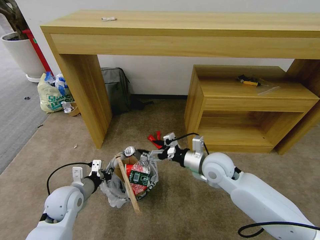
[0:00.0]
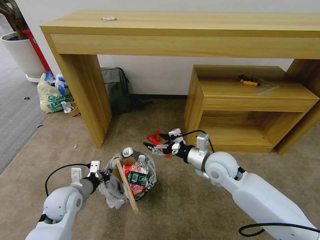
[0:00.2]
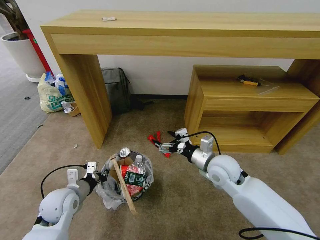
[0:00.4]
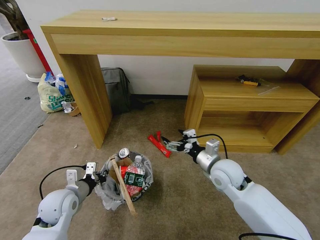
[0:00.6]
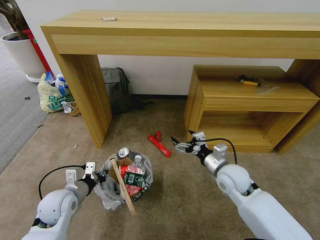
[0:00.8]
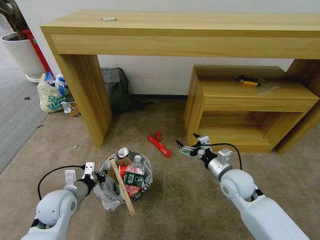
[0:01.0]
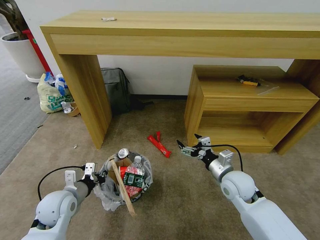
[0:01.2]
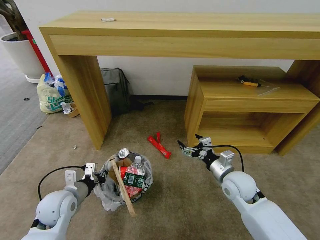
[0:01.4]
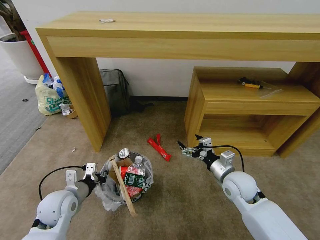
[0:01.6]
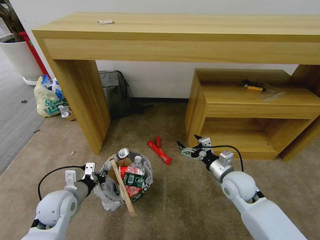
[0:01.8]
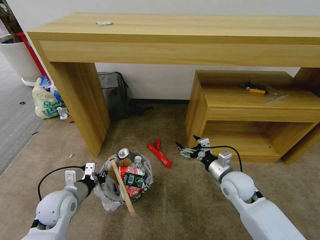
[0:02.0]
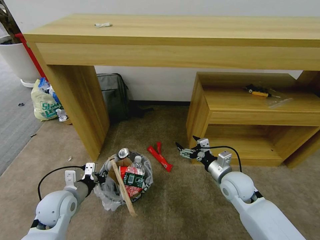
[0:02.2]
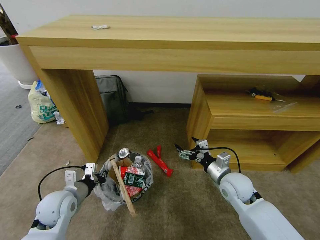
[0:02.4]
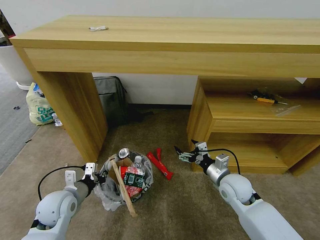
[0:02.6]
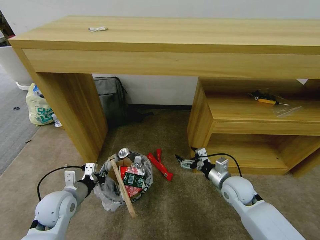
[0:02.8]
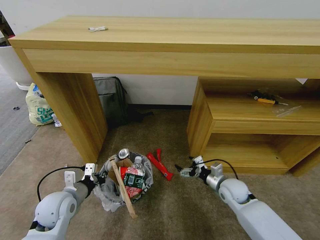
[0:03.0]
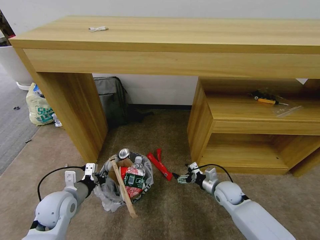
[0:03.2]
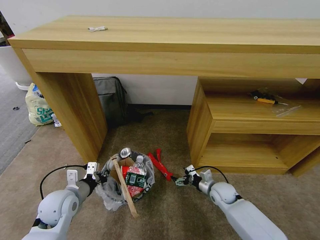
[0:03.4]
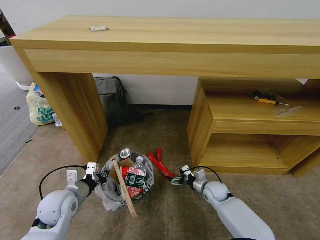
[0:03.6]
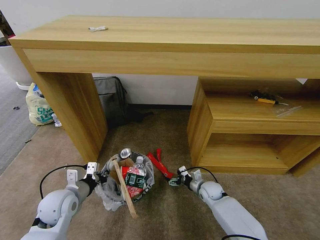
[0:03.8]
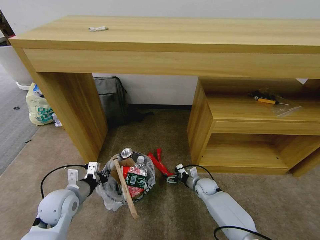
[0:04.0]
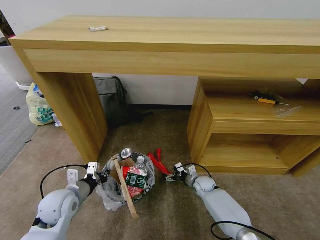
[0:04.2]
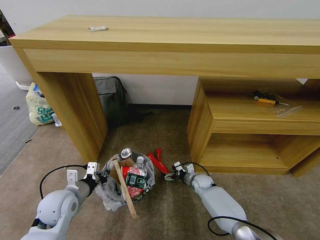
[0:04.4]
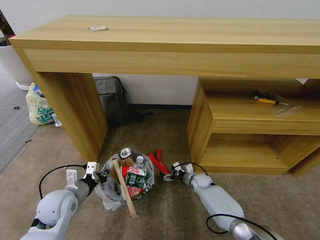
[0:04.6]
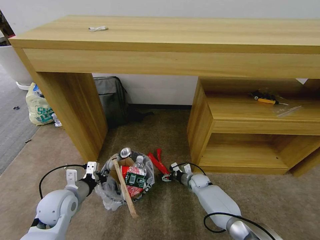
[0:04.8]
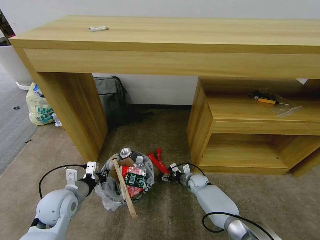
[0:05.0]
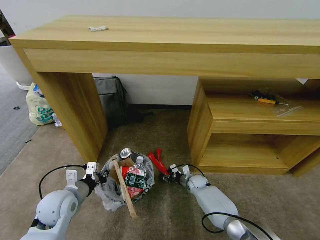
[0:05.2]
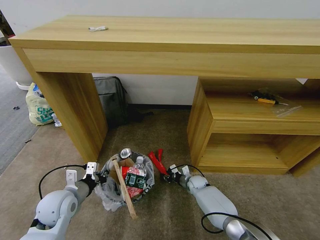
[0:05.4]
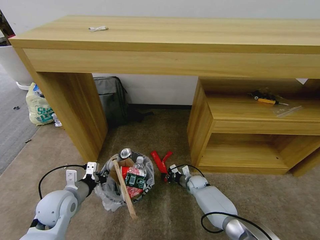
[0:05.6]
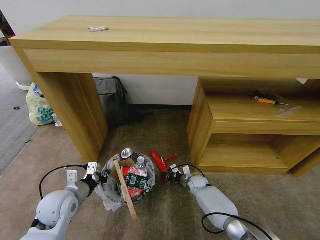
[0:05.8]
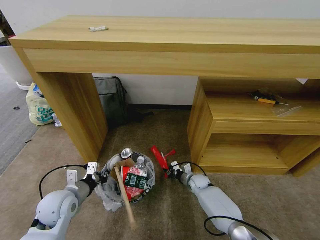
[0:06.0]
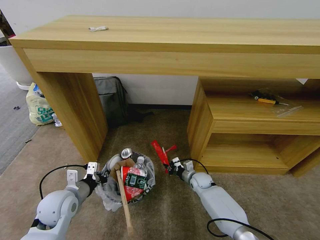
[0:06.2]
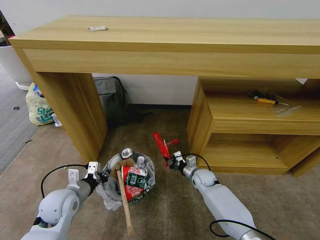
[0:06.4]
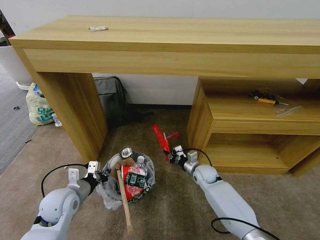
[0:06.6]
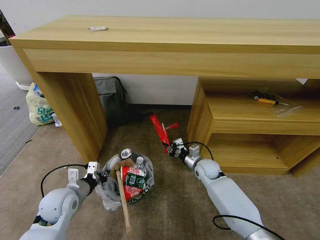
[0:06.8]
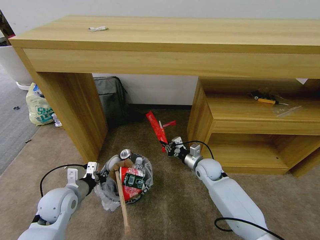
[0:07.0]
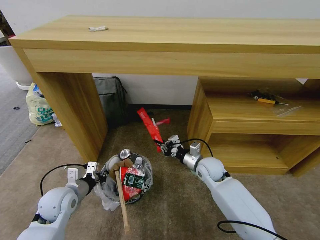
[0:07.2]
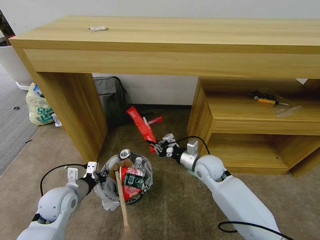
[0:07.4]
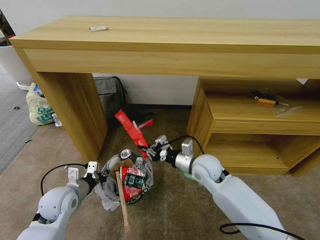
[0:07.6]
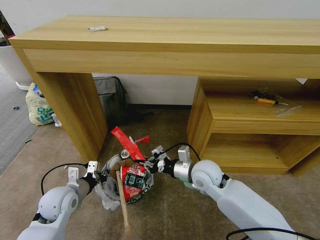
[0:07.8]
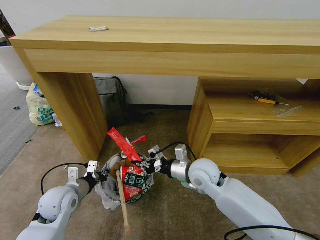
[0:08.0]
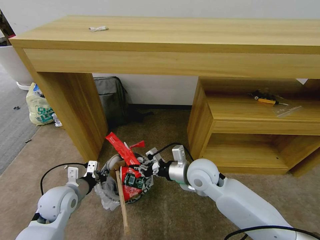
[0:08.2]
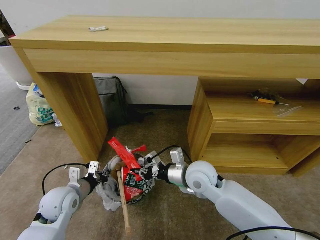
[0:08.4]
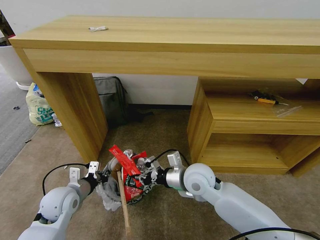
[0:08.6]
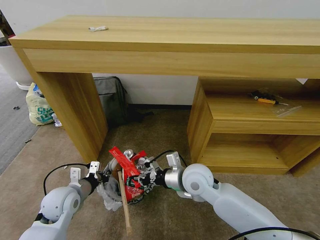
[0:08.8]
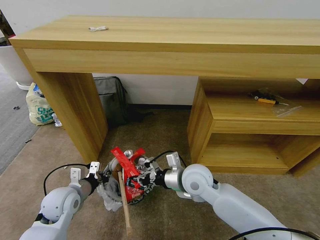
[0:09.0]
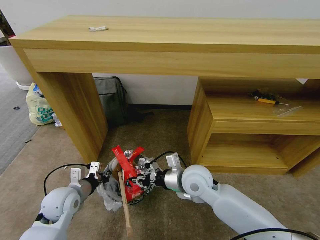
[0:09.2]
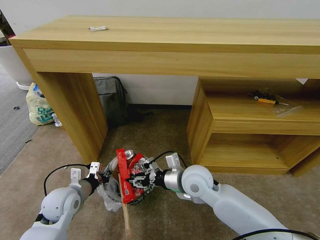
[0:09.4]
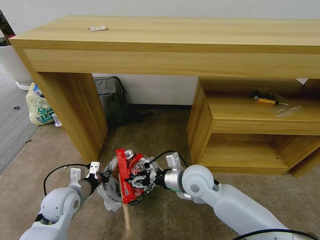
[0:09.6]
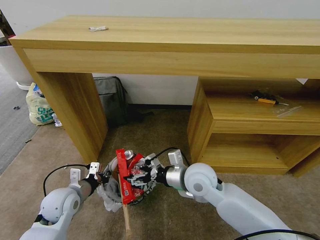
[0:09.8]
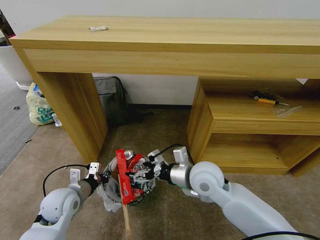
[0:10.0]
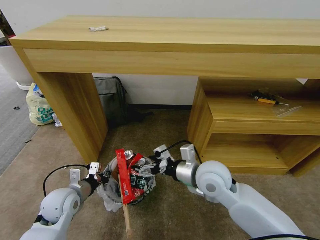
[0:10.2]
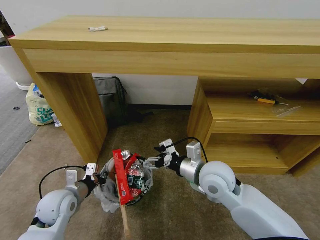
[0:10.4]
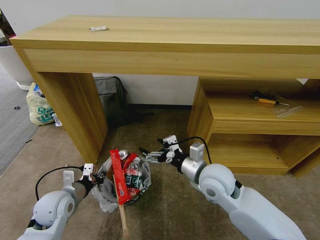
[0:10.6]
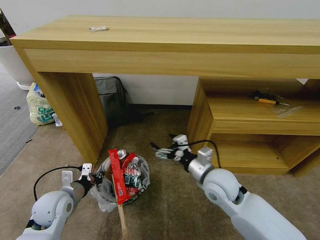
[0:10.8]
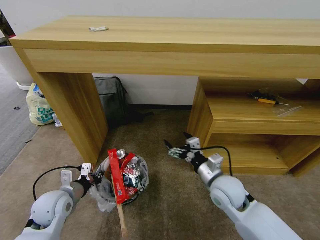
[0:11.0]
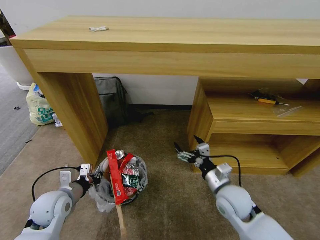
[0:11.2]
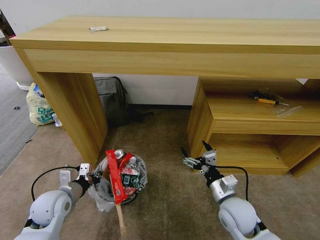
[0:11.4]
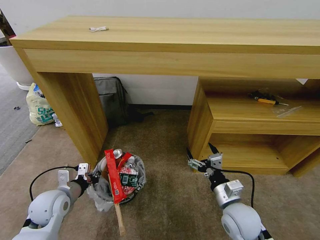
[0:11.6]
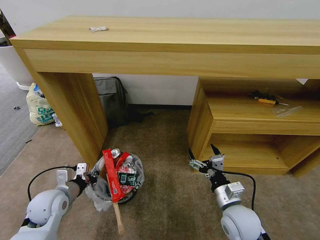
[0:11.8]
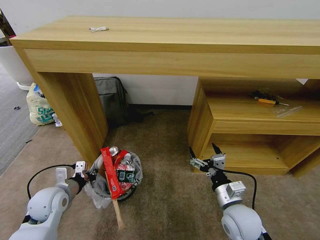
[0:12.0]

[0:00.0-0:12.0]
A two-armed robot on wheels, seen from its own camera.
Task of the whole recording: Pick up the trash bin and place the garbage on the floor into it.
0:00.0 to 0:01.6: The right gripper travels to the right and downward by roughly 10 cm.
0:01.6 to 0:03.0: The right gripper goes roughly 10 cm downward.
0:03.0 to 0:04.4: The right gripper is displaced downward, forward and to the left by roughly 20 cm.
0:04.4 to 0:06.0: The right gripper closes its fingers.
0:06.0 to 0:07.6: The right gripper travels upward by approximately 25 cm.
0:07.6 to 0:09.0: The right gripper ends up approximately 5 cm from where it was.
0:09.0 to 0:10.4: The right gripper shifts by approximately 5 cm, and opens its fingers.
0:10.4 to 0:12.0: The right gripper travels downward, backward and to the right by roughly 15 cm.

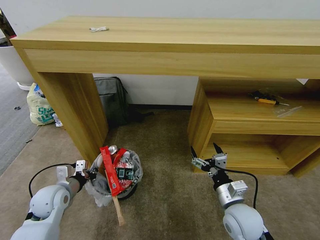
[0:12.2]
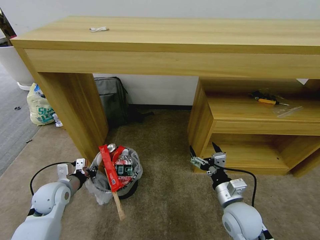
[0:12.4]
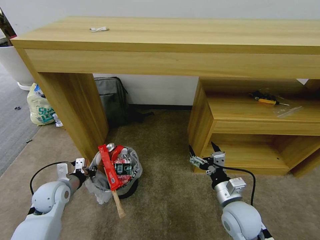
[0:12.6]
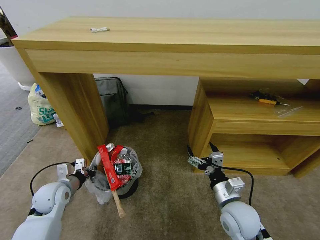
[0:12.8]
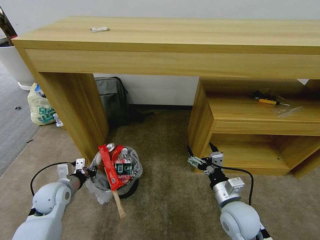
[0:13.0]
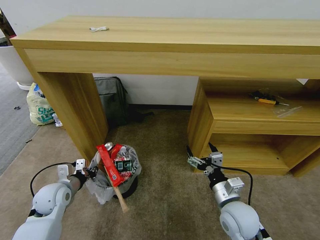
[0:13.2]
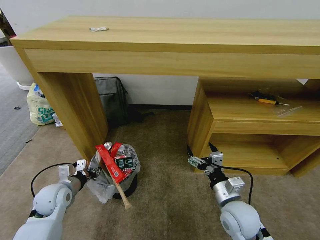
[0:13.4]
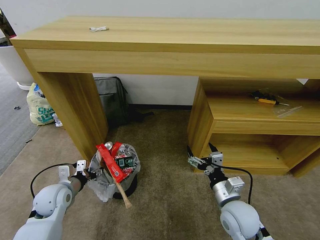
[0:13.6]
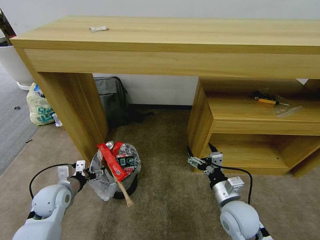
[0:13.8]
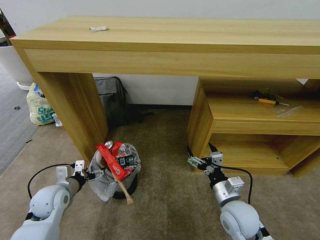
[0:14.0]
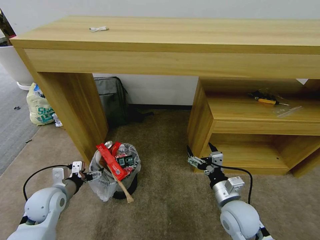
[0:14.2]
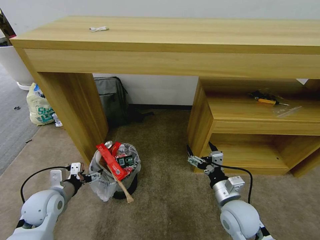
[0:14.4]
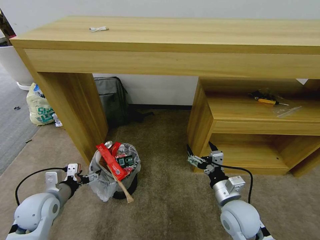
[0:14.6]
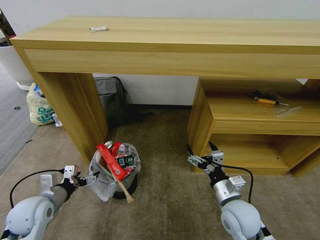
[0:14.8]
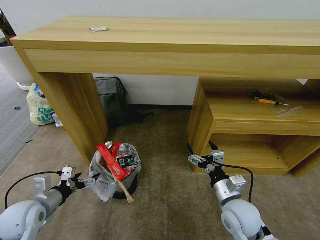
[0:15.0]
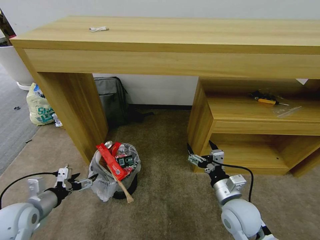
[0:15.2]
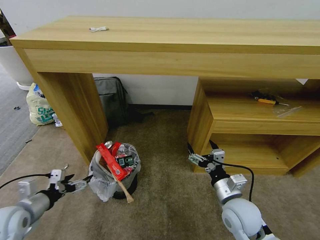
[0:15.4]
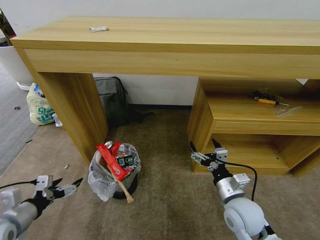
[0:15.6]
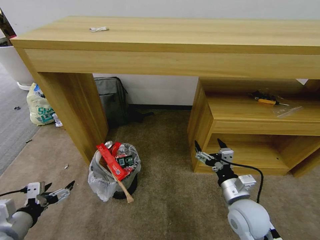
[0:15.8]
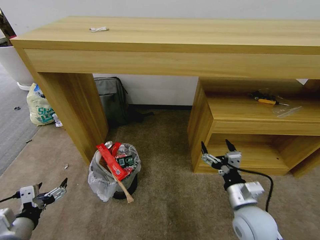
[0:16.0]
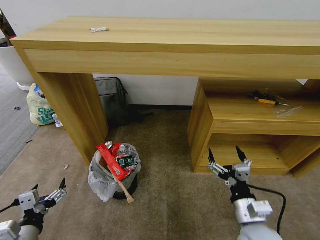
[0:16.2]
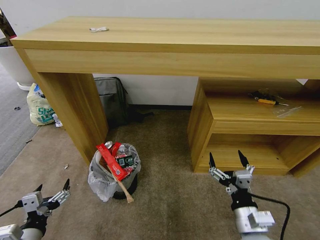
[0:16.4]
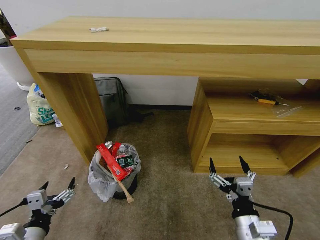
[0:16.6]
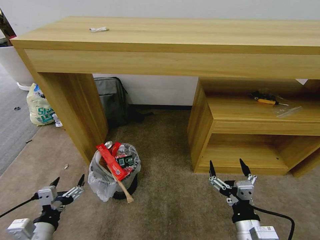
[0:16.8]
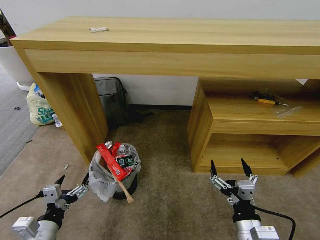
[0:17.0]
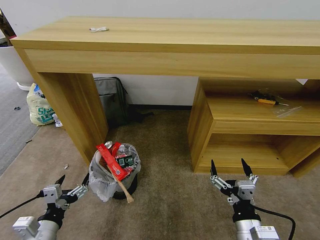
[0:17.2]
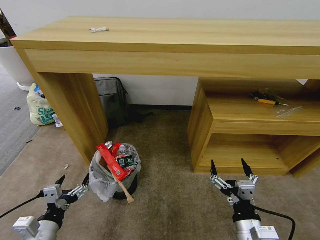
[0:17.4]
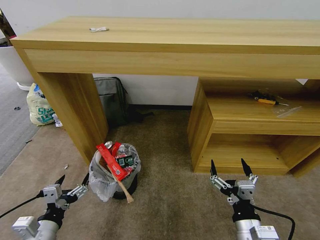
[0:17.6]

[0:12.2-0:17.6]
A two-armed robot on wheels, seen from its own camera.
Task of the whole recording: Pick up the trash bin and place the garbage on the floor into it.
0:12.2 to 0:13.6: The left gripper opens.
0:13.6 to 0:15.0: The left gripper shifts roughly 5 cm backward, and opens.
0:15.0 to 0:16.2: The right gripper moves roughly 5 cm. The left gripper goes approximately 10 cm backward.
0:16.2 to 0:17.6: The right gripper shifts approximately 5 cm backward.

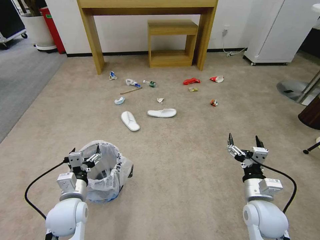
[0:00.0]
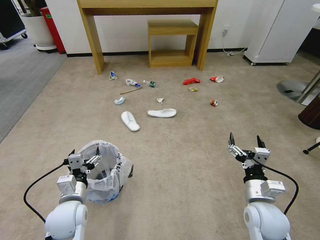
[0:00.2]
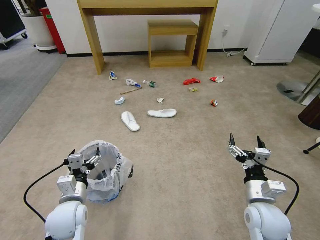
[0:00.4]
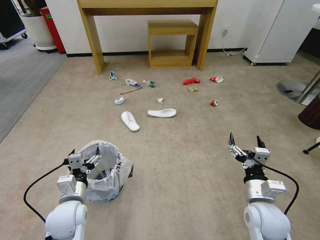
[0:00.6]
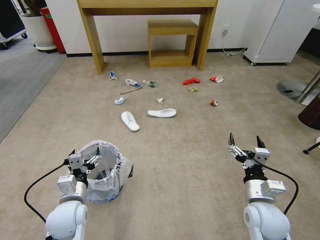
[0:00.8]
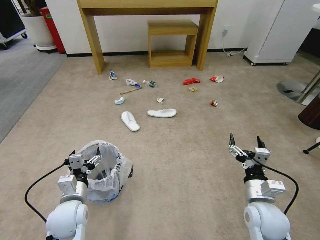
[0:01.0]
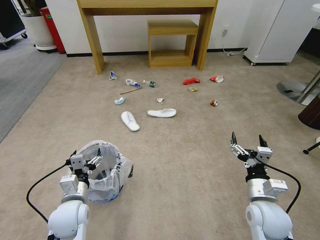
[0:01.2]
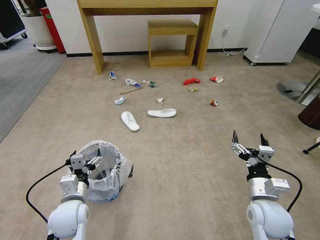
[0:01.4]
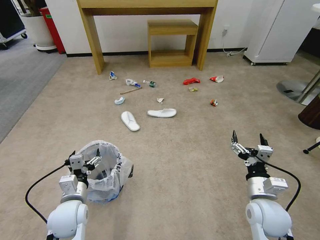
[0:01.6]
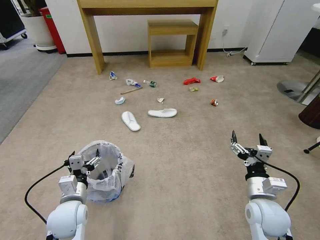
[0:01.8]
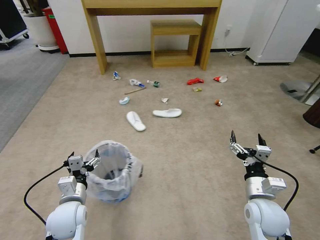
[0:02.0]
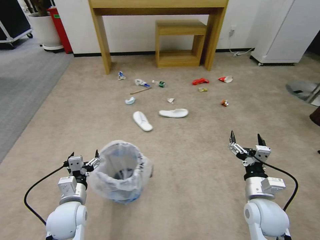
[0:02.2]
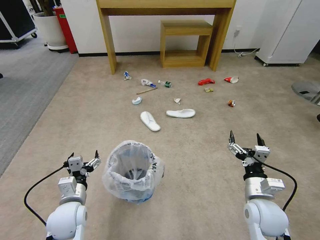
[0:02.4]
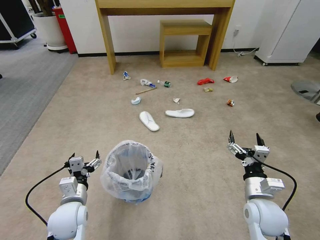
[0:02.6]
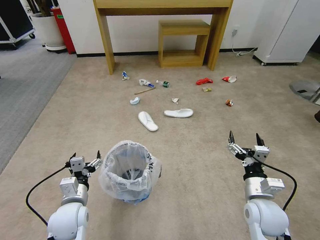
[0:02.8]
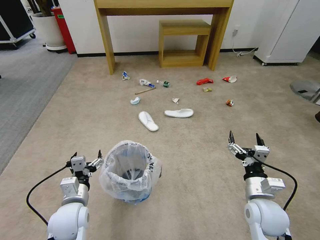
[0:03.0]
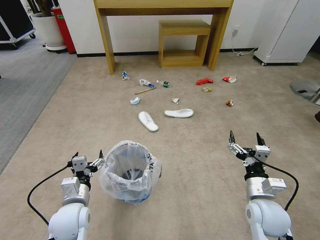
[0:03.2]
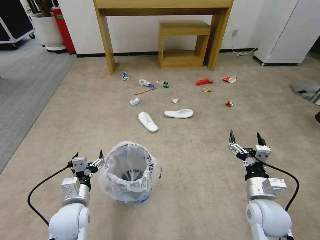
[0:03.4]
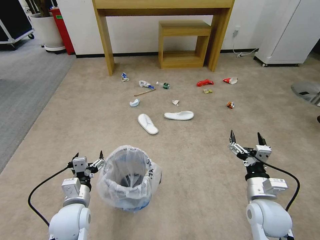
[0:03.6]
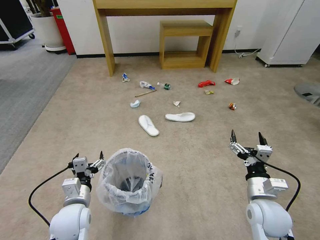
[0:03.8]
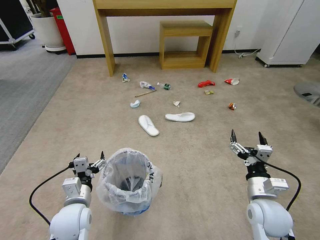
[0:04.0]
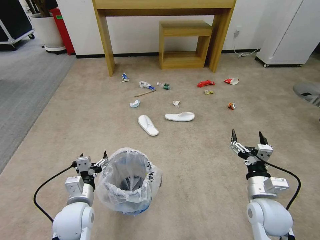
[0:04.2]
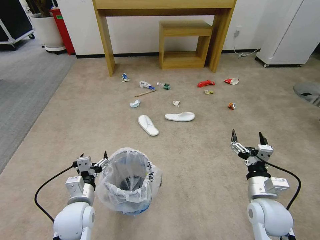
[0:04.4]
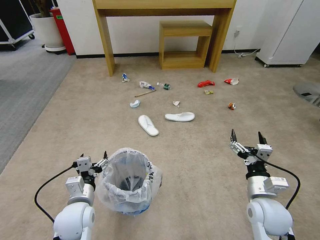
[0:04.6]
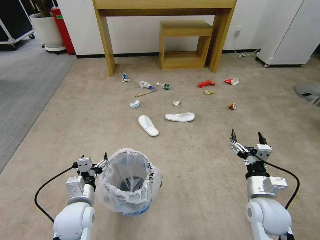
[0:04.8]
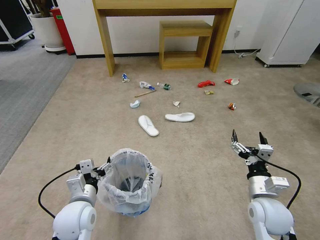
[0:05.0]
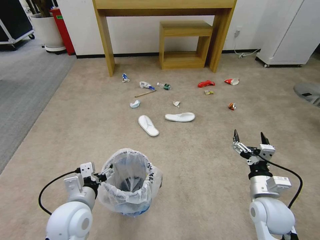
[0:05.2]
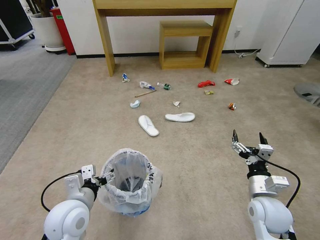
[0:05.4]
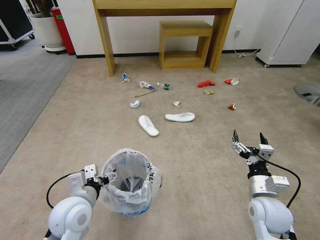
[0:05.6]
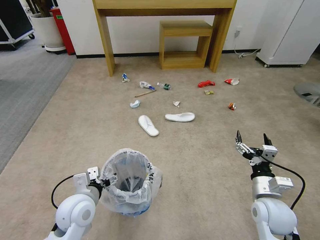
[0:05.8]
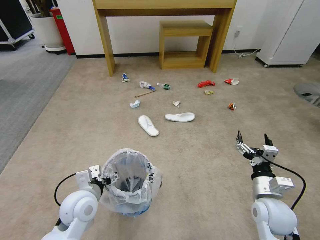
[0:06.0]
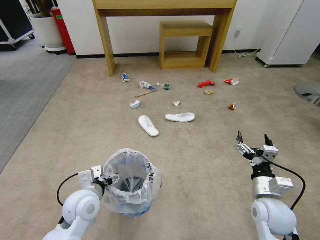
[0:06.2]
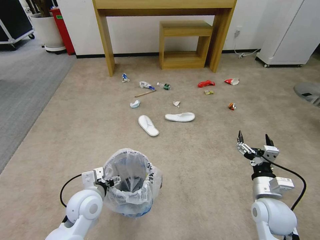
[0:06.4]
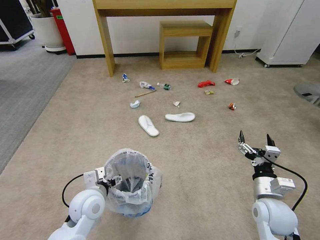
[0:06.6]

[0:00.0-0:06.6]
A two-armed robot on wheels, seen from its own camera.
Task of the whole recording: Pick up the trash bin and place the garbage on the floor into it.
0:03.2 to 0:05.0: The grippers stay close to where they were, moving slightly.
